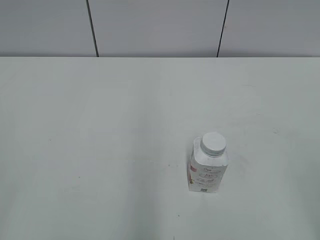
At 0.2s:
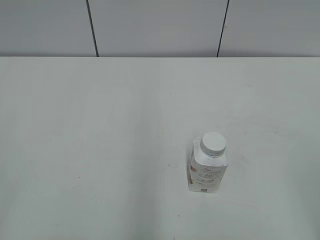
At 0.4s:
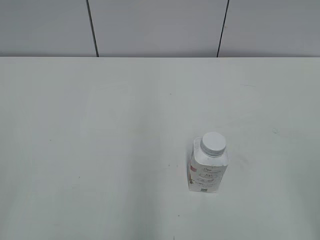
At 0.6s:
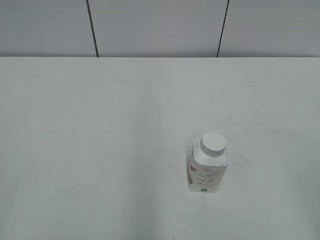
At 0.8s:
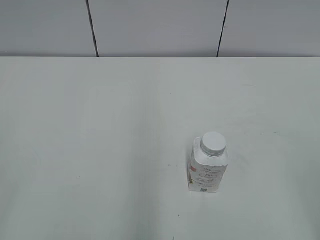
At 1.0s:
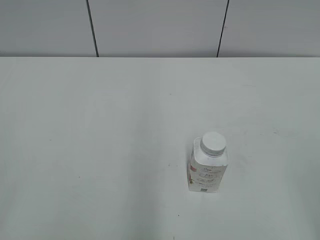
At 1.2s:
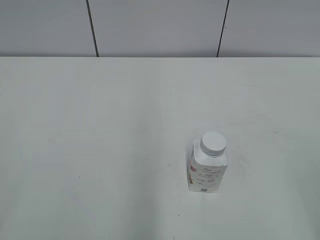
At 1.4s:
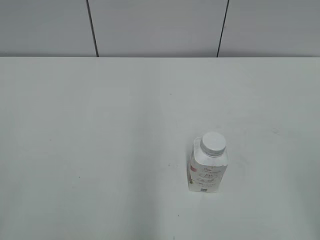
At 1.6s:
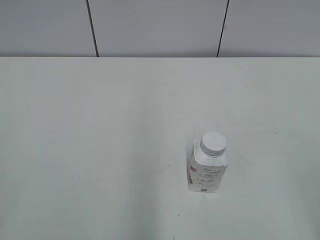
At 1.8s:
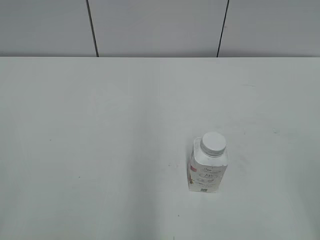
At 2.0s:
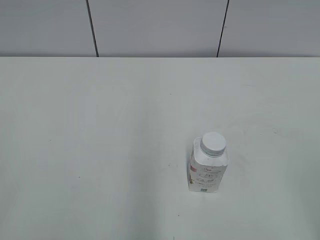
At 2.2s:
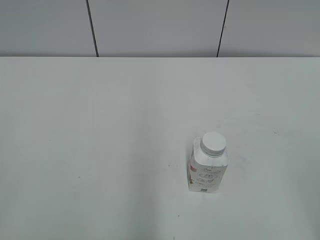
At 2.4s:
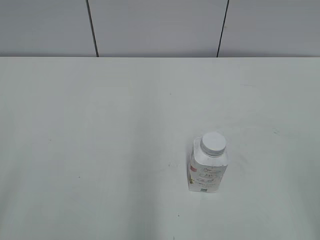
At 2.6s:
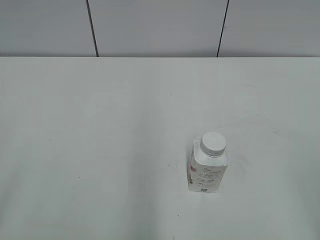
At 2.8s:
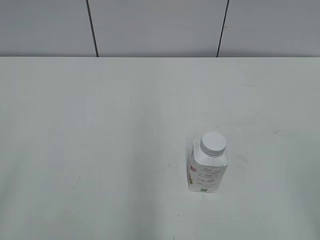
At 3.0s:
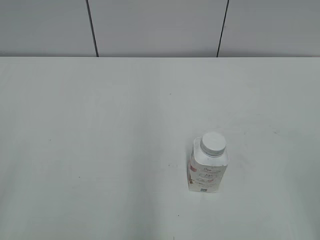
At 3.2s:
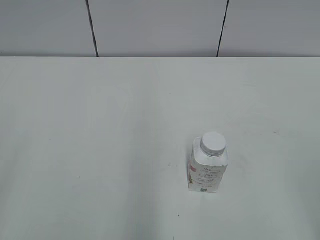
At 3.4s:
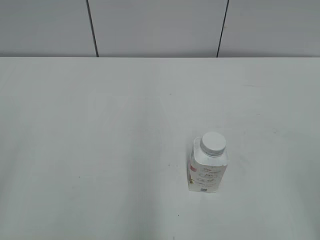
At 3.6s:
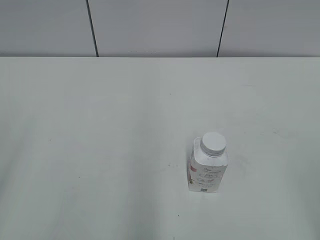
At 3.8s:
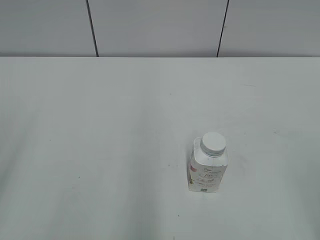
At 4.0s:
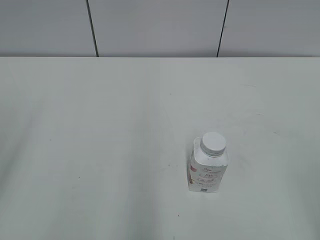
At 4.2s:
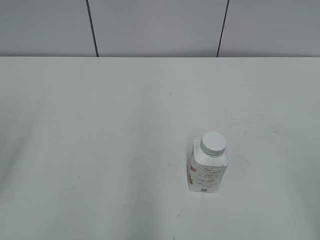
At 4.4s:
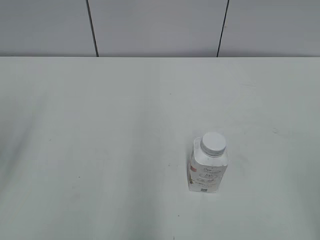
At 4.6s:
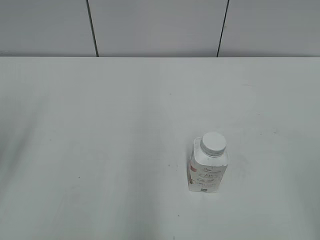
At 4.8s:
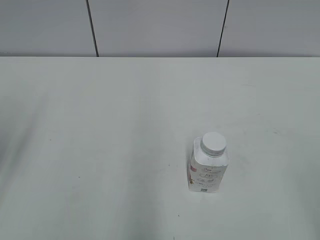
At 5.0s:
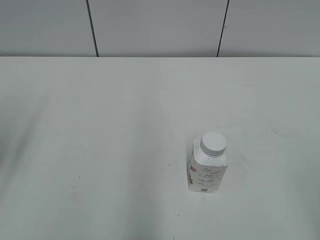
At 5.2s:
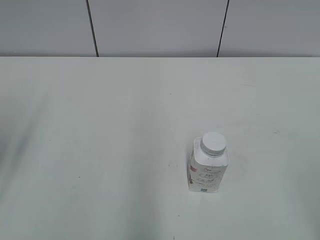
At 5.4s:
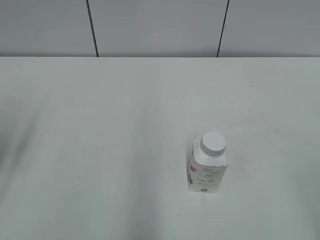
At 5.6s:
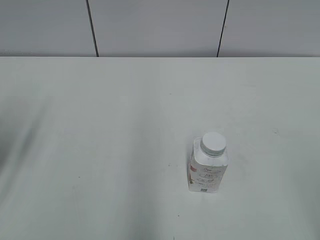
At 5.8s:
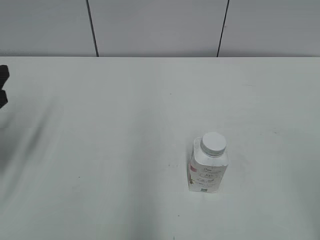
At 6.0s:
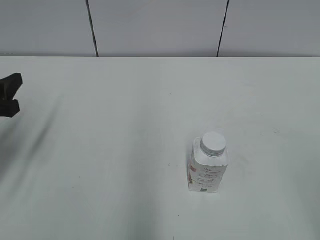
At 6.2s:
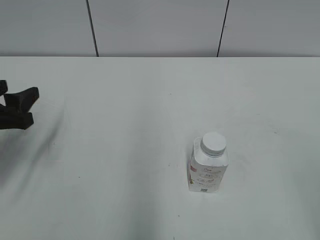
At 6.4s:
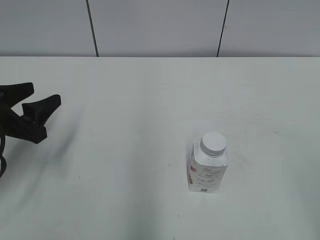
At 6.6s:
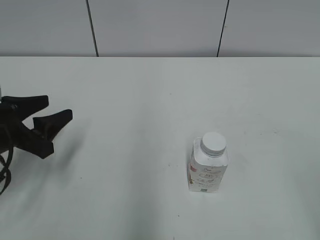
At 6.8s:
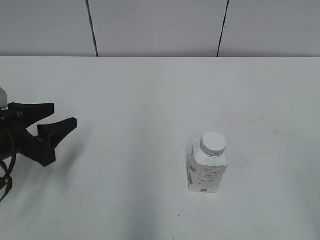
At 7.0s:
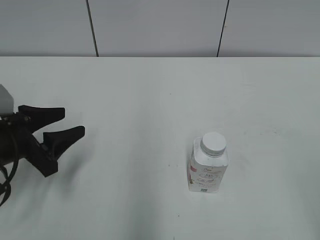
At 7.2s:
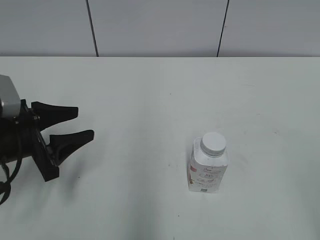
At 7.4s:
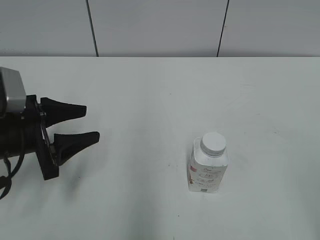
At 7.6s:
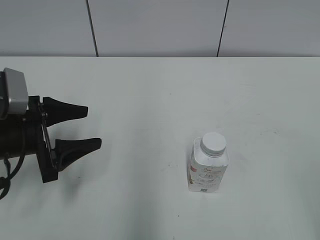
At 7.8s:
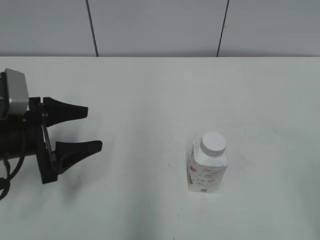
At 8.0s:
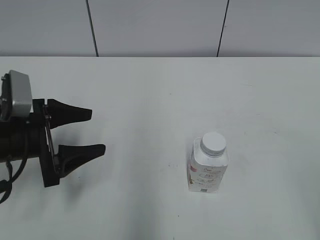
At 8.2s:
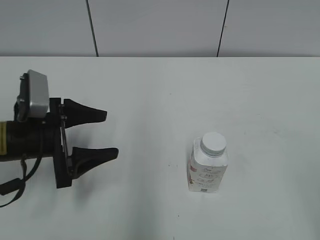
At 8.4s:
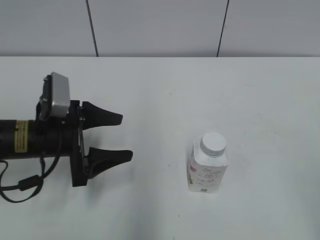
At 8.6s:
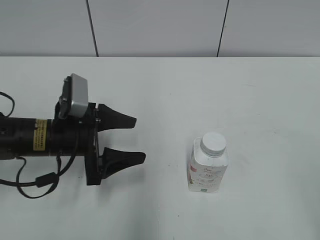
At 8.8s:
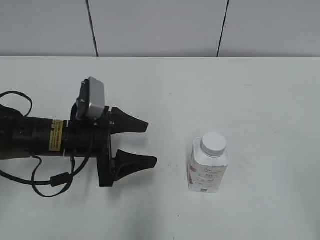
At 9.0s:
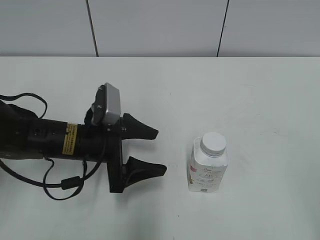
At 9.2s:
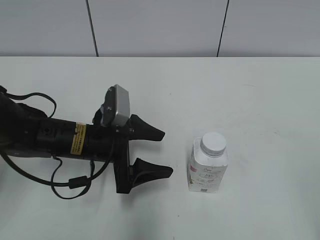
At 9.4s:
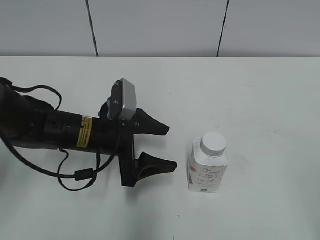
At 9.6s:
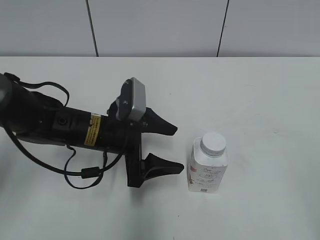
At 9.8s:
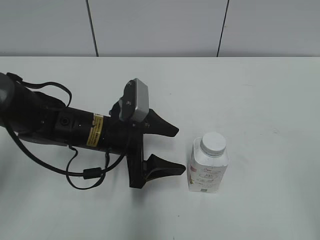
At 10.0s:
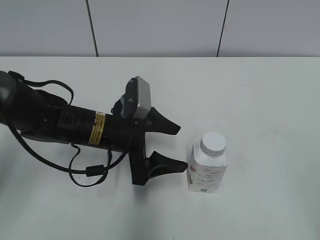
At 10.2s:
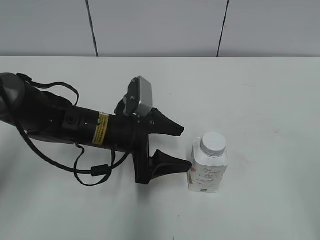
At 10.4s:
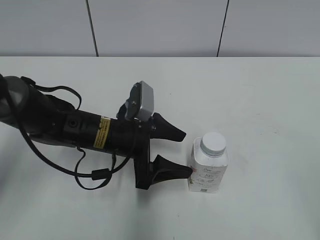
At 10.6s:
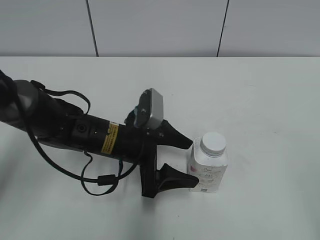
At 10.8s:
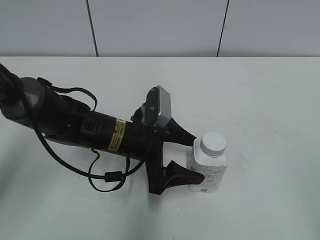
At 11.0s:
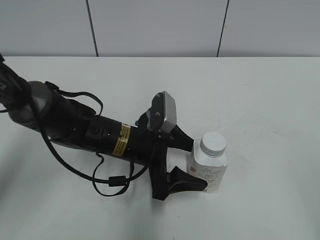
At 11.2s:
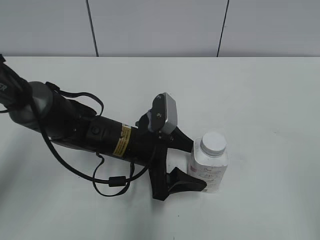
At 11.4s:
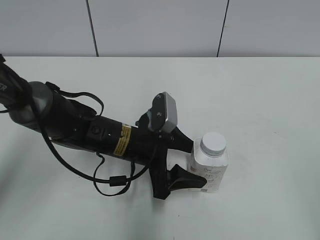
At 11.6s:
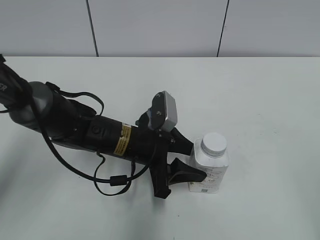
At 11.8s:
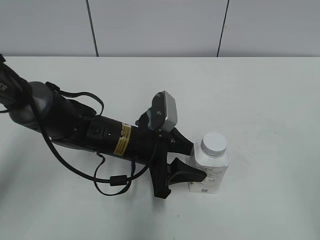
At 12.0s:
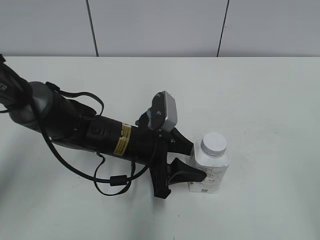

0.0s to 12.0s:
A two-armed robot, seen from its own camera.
Step, 0.0s to 11.6s: Grasp the bottle and move it to the center of the table with the left gripper.
4.4s to 6.0s: The left gripper travels downward and forward by roughly 10 cm.
6.0s to 7.6s: The left gripper shifts some 10 cm to the right and downward.
7.6s to 9.0s: The left gripper moves to the right, about 10 cm.
9.0s to 10.4s: The grippers make only small movements.
10.4s to 12.0s: The left gripper closes up.

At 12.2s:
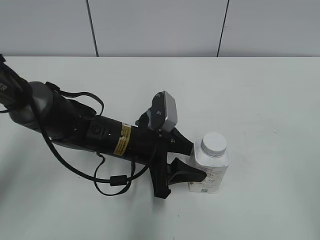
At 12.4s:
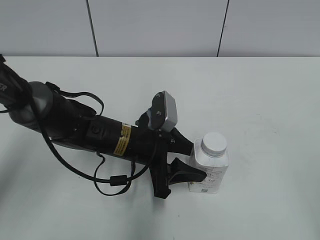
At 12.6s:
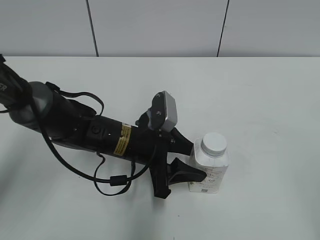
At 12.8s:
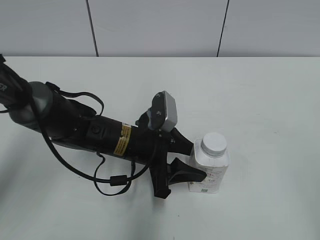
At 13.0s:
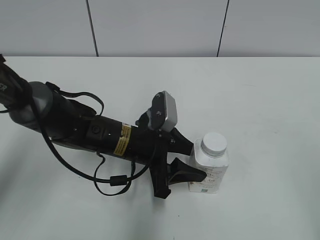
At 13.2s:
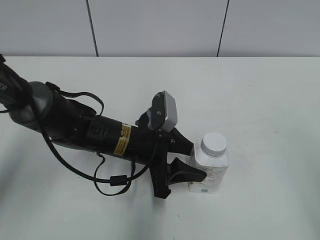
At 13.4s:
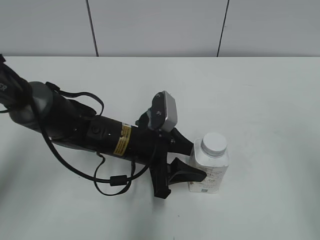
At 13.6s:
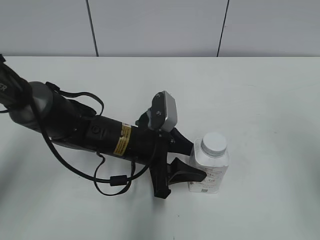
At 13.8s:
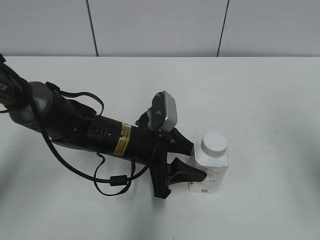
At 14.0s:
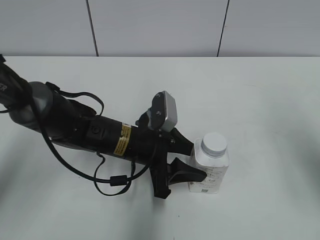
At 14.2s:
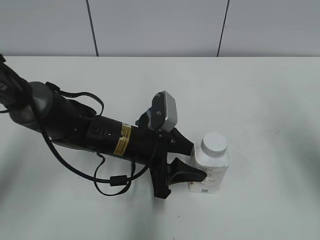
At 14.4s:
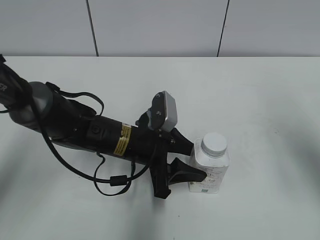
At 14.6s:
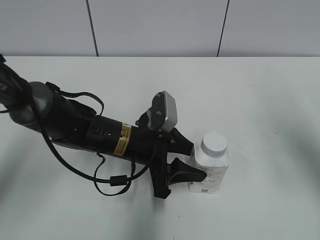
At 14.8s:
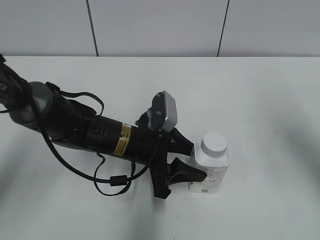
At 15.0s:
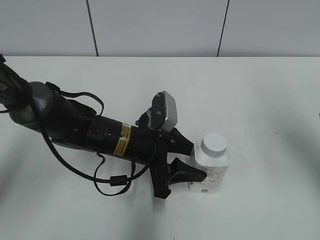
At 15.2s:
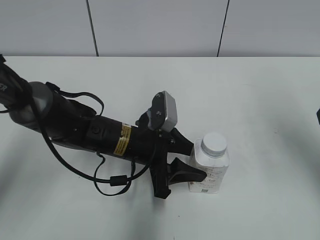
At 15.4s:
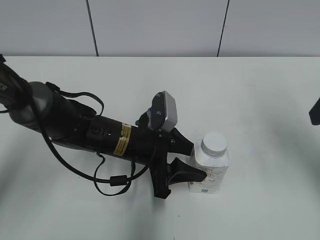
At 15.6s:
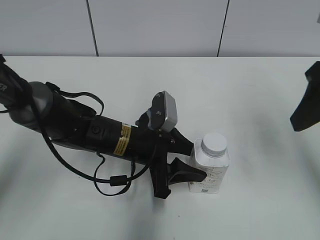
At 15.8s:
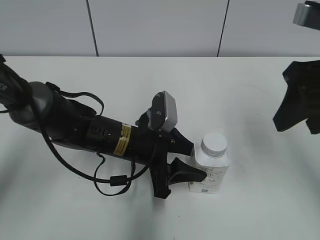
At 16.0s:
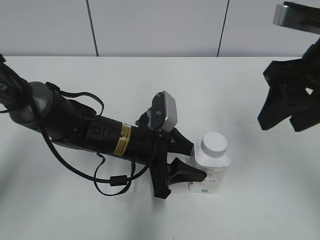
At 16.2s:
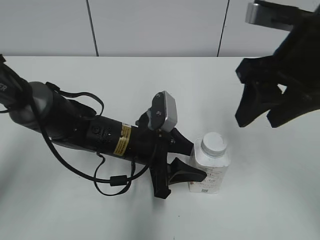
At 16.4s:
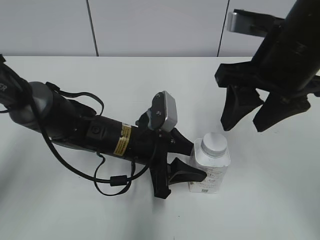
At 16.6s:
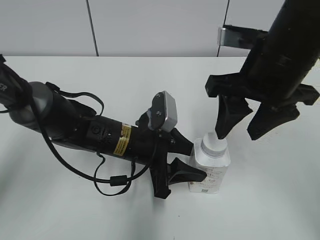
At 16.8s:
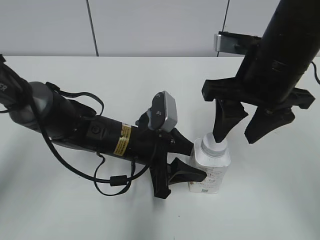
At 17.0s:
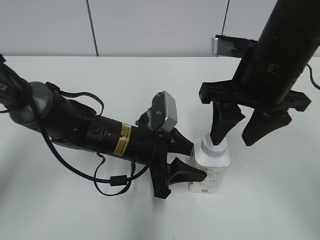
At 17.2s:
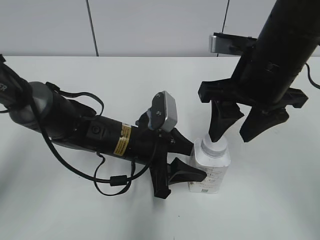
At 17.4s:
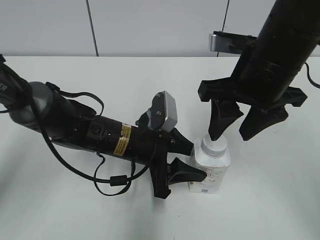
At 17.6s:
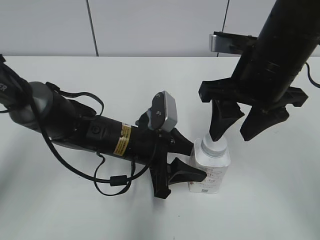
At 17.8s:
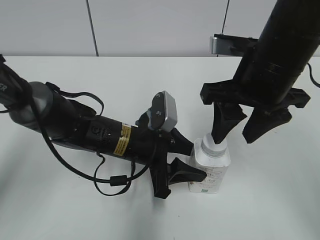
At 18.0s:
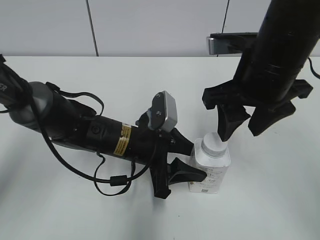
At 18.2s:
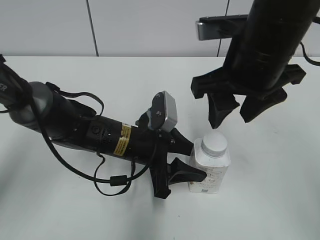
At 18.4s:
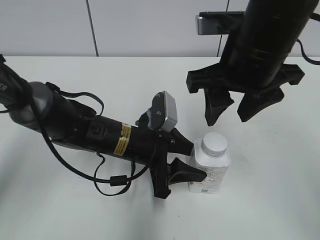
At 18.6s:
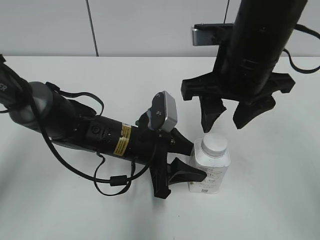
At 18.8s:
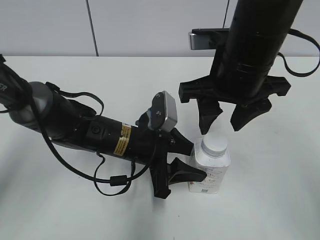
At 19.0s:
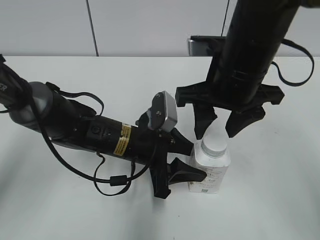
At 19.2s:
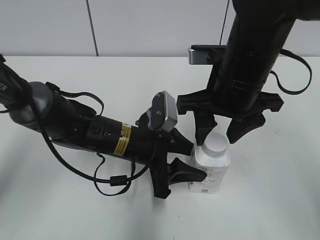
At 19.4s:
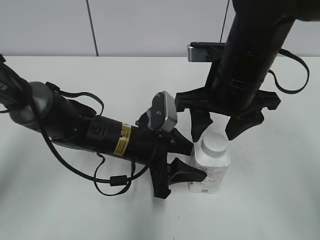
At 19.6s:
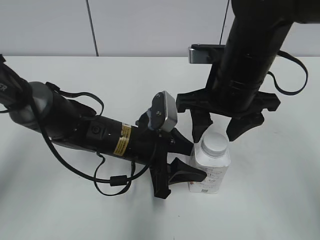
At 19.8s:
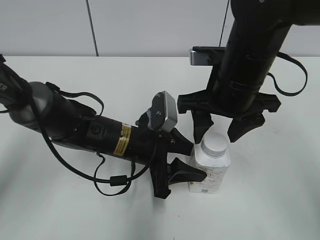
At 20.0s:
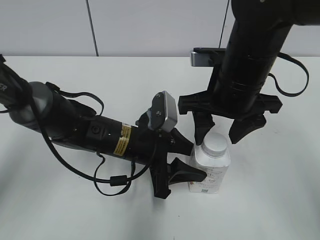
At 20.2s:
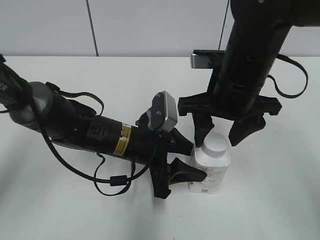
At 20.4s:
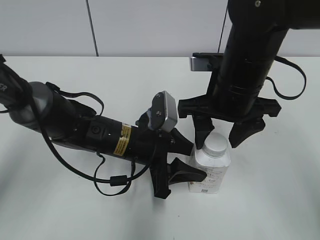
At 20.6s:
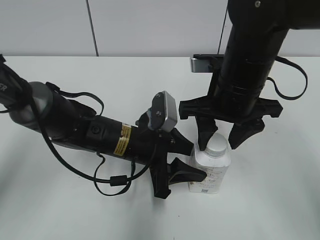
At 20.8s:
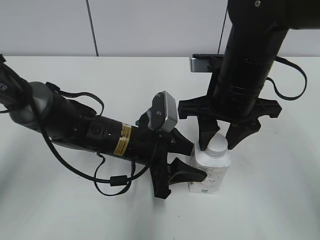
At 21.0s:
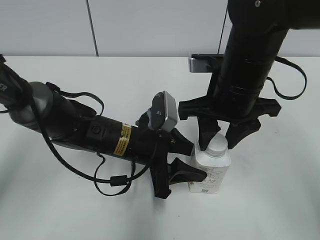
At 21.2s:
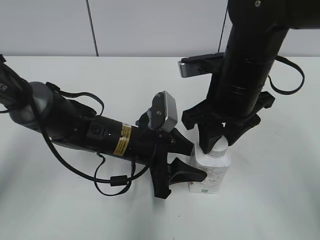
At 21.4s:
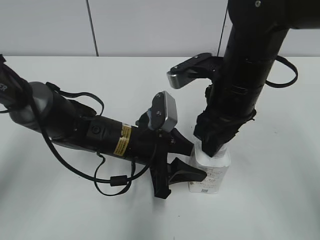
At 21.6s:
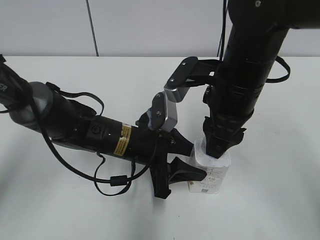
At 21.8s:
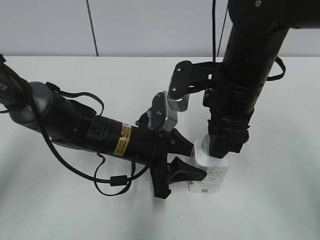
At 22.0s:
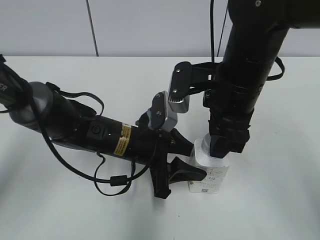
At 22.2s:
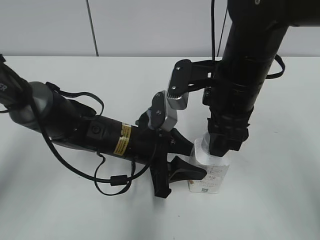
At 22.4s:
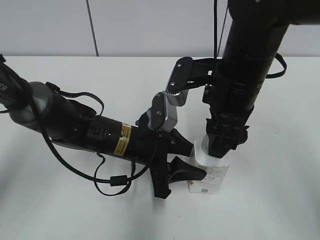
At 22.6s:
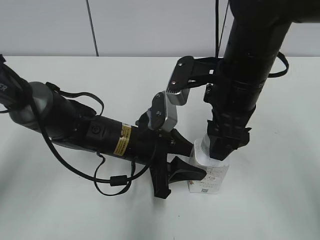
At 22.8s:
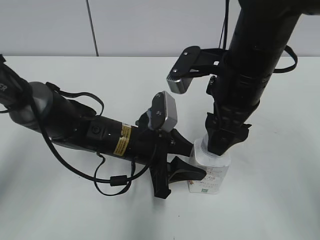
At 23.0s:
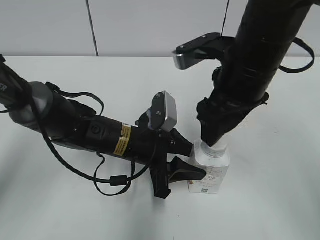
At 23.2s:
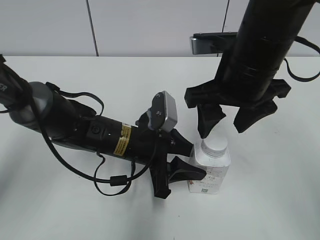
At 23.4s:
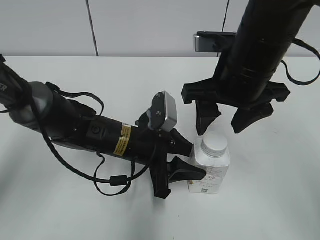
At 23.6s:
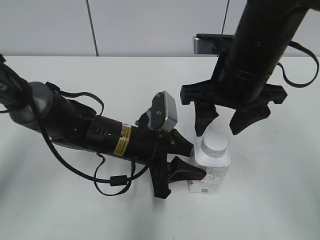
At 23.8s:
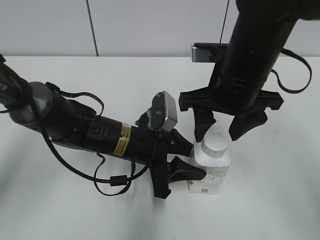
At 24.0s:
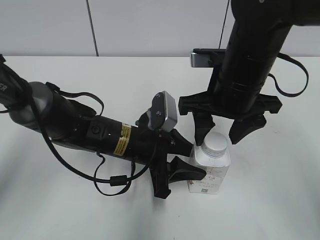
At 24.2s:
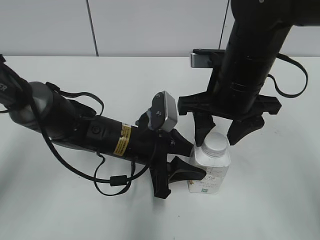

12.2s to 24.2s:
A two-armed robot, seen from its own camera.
12.2s to 13.8s: The right gripper travels forward by about 15 cm.
15.2s to 16.6s: The right gripper travels to the left by some 15 cm, and closes up.
16.6s to 18.2s: The grippers make only small movements.
18.2s to 19.8s: The right gripper heads downward, covering about 5 cm.
19.8s to 21.2s: The right gripper closes up.
21.2s to 22.6s: The right gripper opens its fingers.
